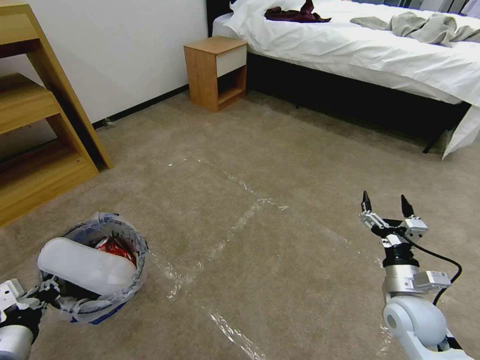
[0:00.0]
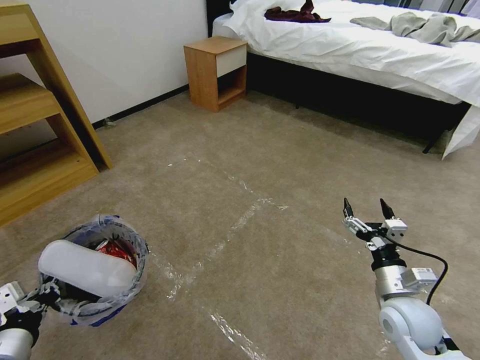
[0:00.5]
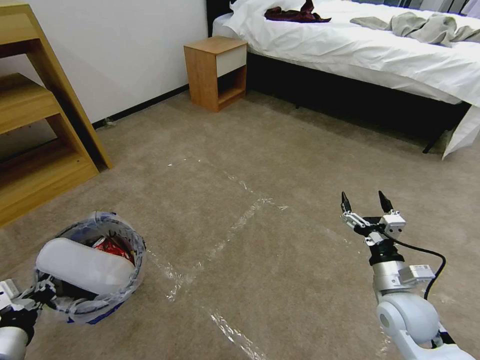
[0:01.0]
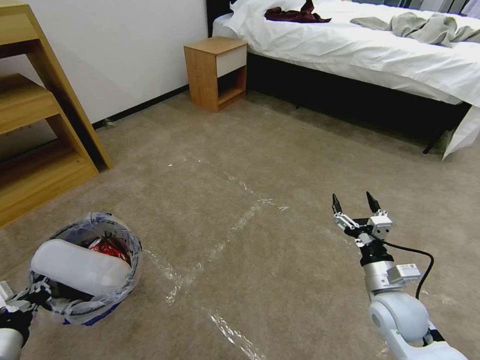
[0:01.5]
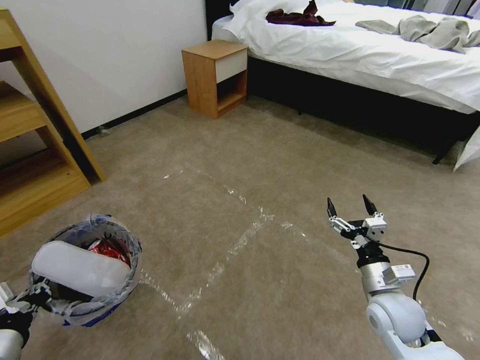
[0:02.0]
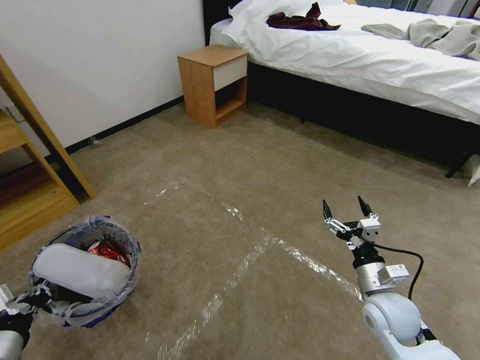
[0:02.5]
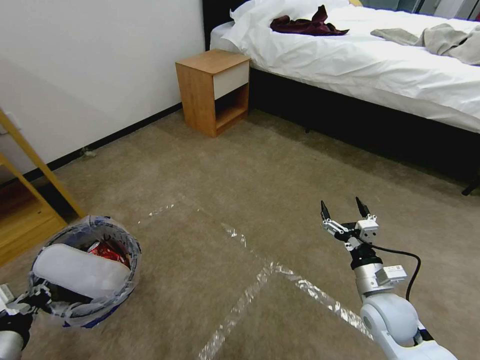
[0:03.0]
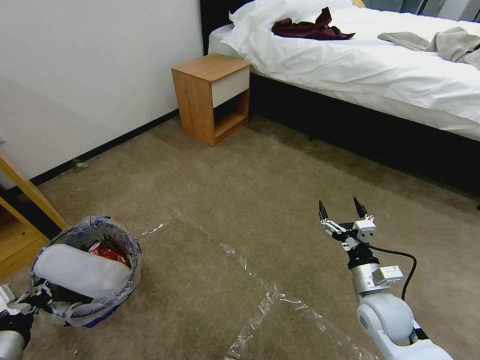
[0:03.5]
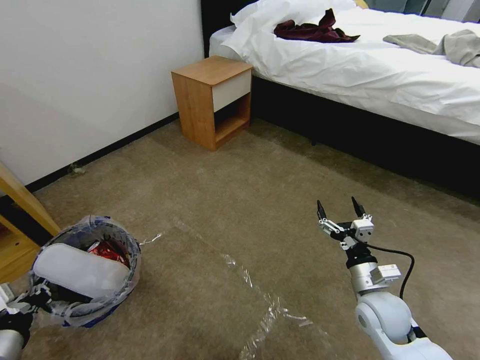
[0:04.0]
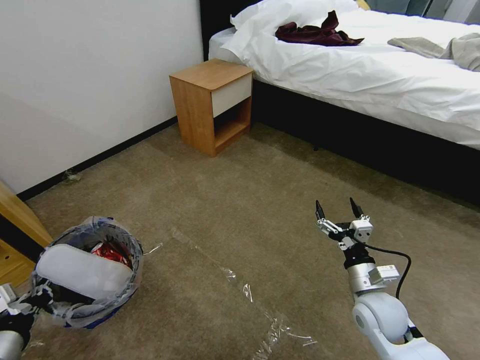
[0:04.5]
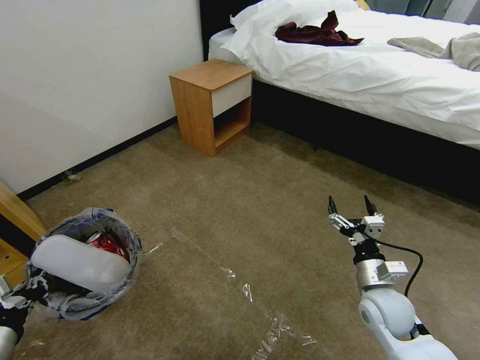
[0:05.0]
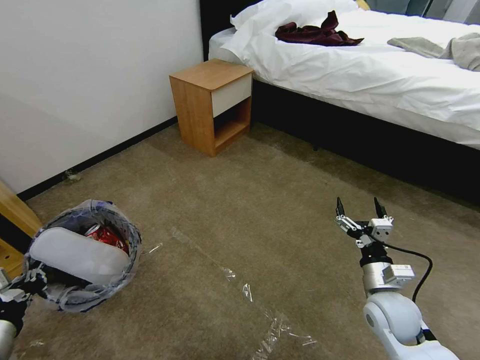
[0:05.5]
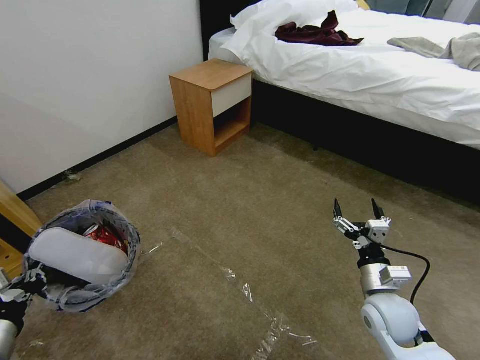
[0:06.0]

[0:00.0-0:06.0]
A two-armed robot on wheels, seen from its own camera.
Task of the whole recording: Pick up the trash bin and place the garbage on the floor into it.
0:04.0 to 0:06.0: The grippers make only small movements.
